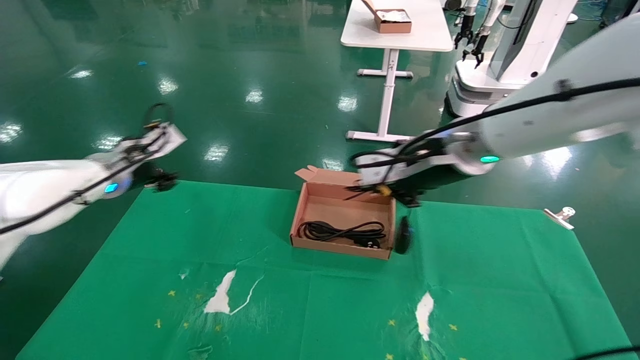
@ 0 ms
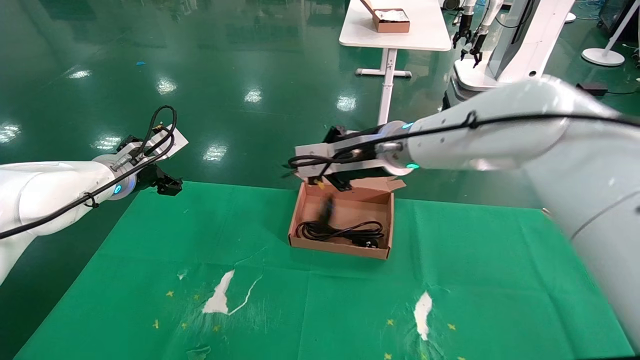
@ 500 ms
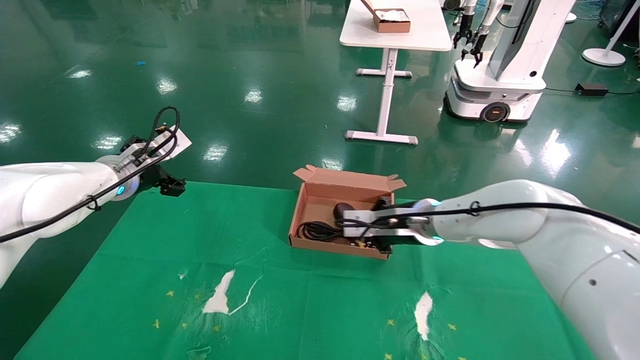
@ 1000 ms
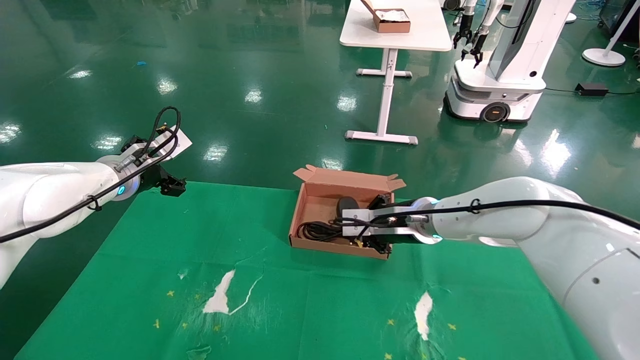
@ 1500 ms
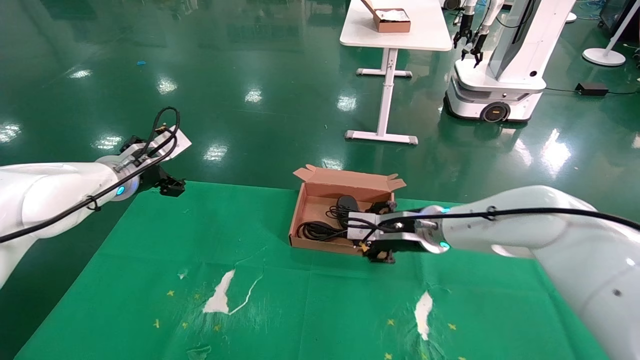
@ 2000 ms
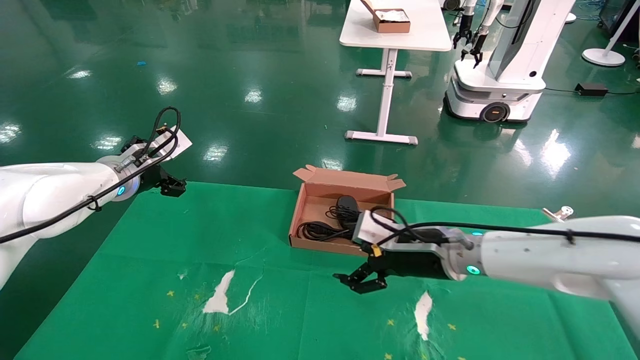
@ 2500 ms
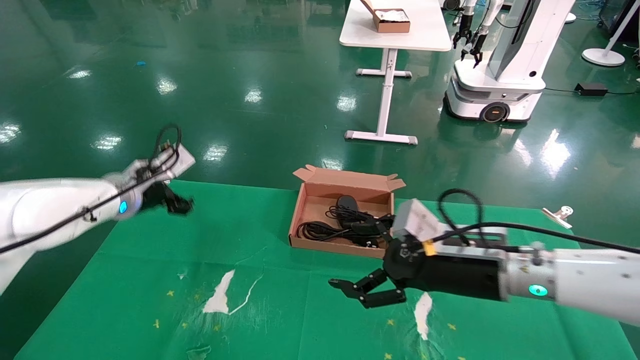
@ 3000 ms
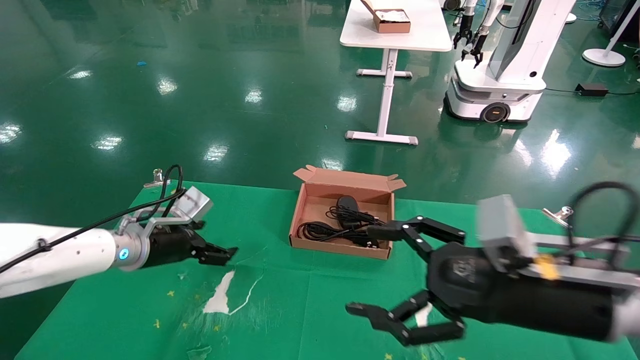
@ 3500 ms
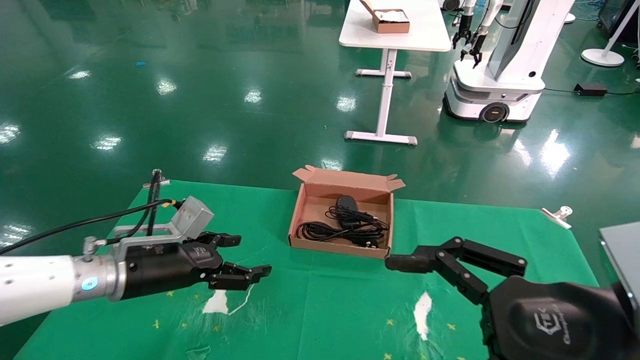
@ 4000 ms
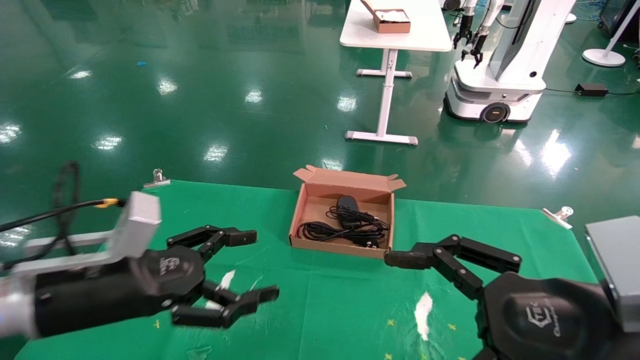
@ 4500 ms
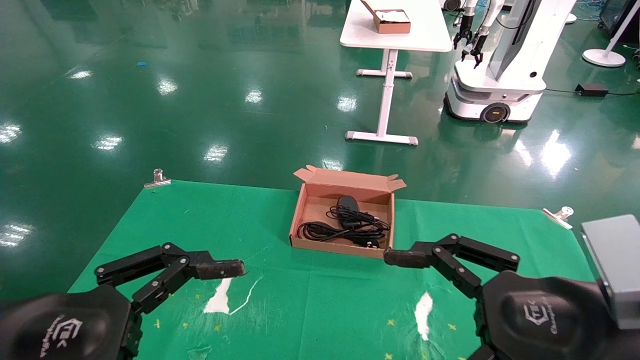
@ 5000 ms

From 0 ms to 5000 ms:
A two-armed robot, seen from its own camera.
From 0 ms to 2500 ms: The left gripper opens its fingers. The right gripper shifts about 15 cm downward, and opens.
From 2500 ms to 5000 ms: The grippers both shift backward by roughly 25 cm.
